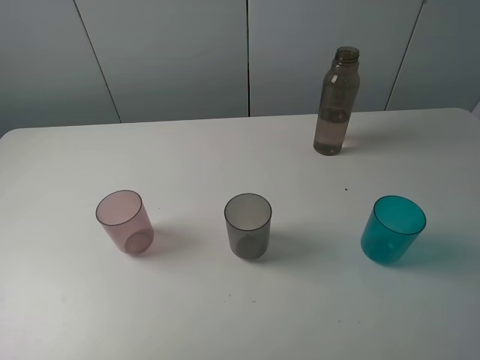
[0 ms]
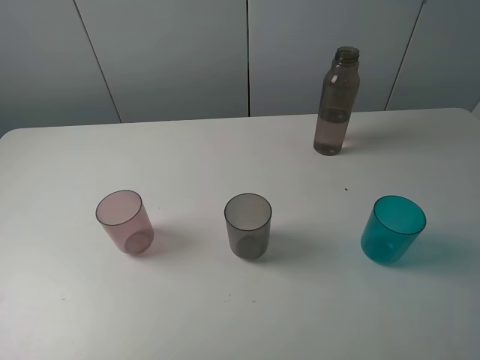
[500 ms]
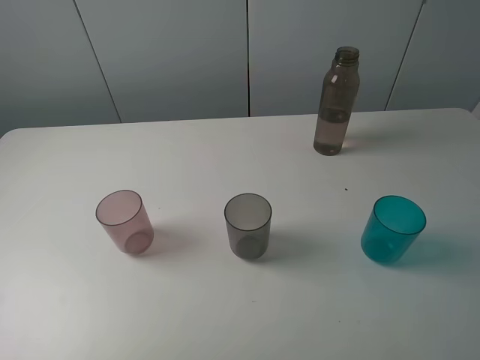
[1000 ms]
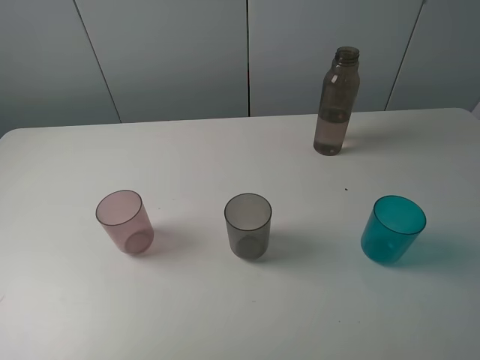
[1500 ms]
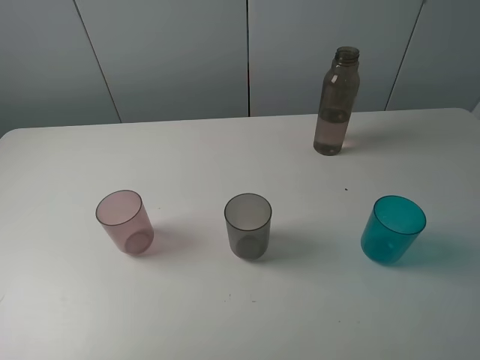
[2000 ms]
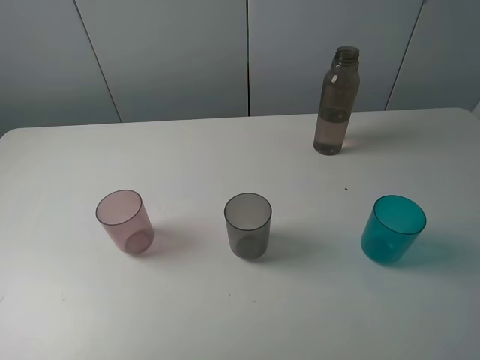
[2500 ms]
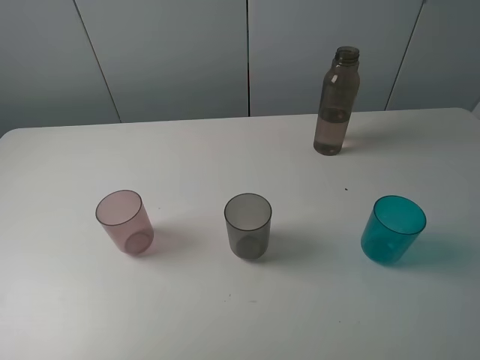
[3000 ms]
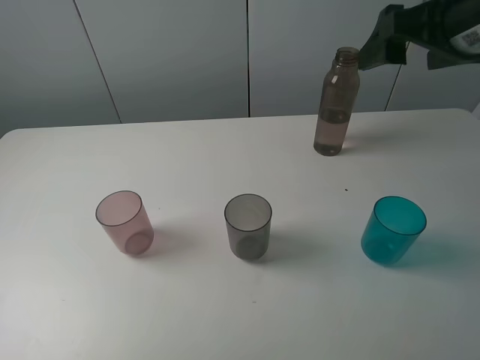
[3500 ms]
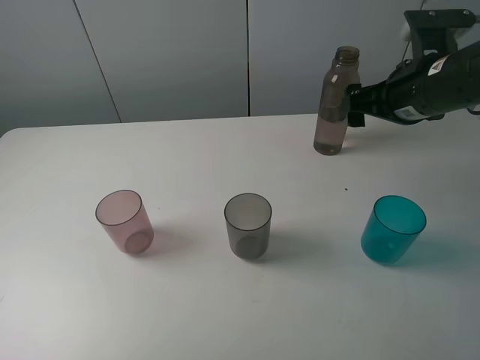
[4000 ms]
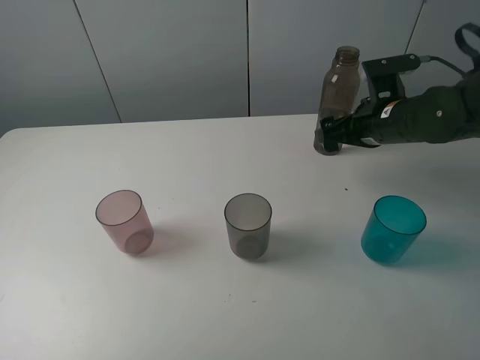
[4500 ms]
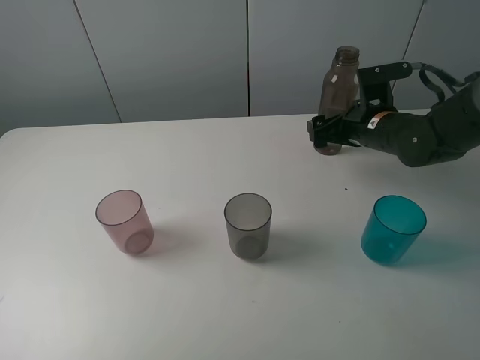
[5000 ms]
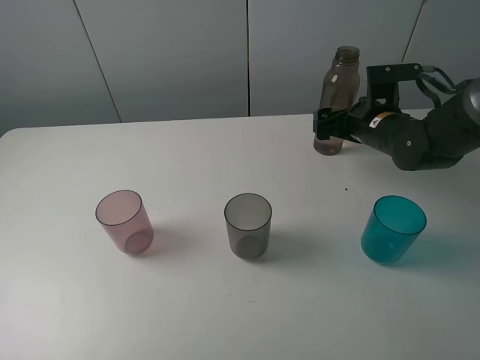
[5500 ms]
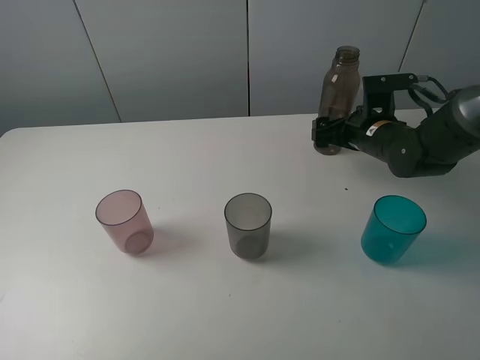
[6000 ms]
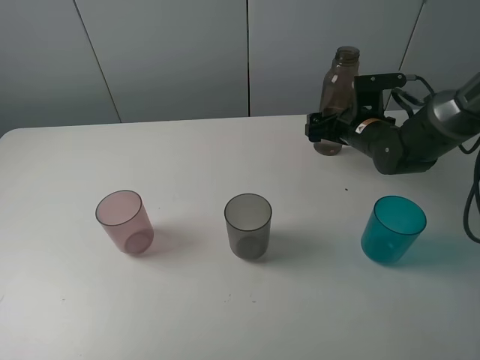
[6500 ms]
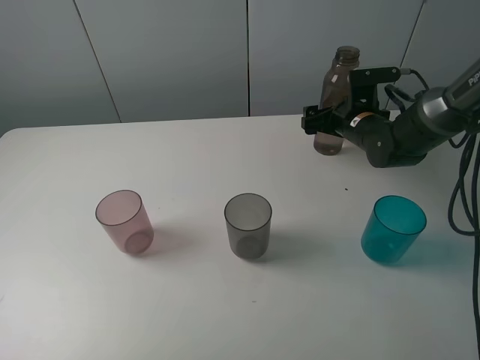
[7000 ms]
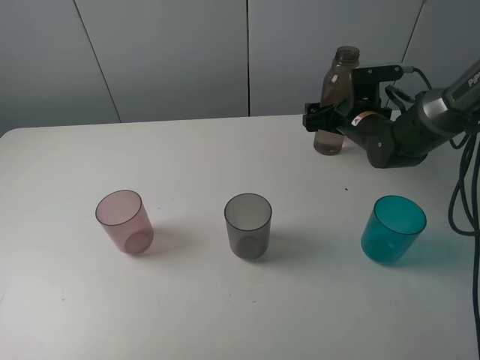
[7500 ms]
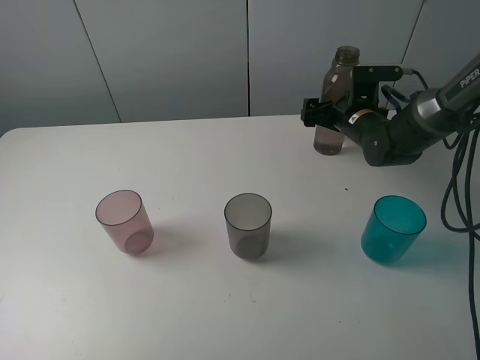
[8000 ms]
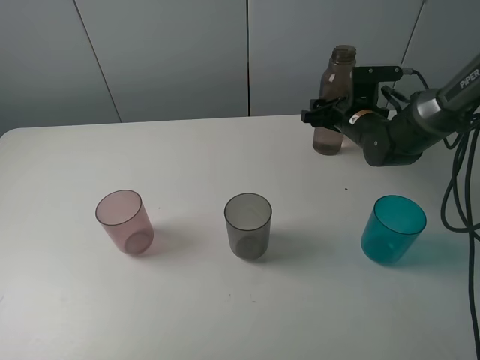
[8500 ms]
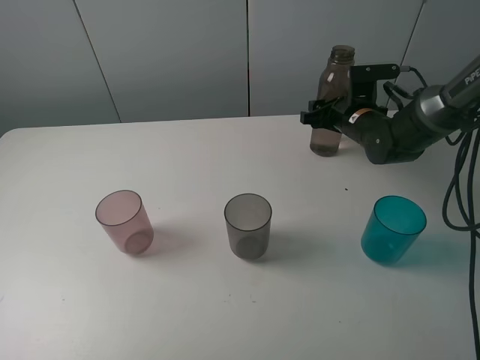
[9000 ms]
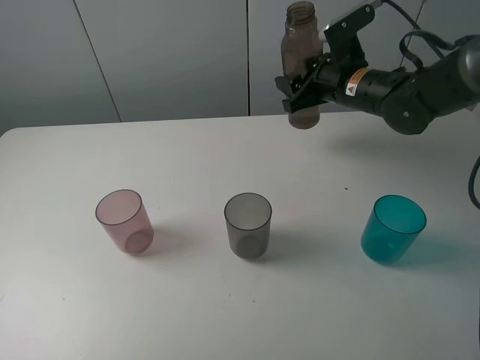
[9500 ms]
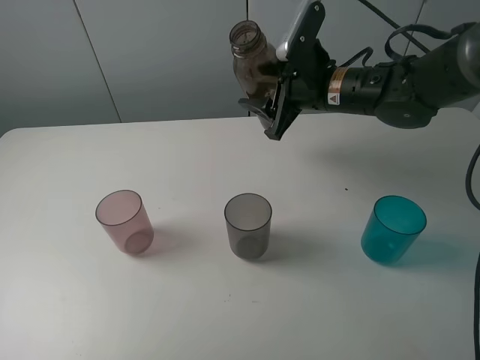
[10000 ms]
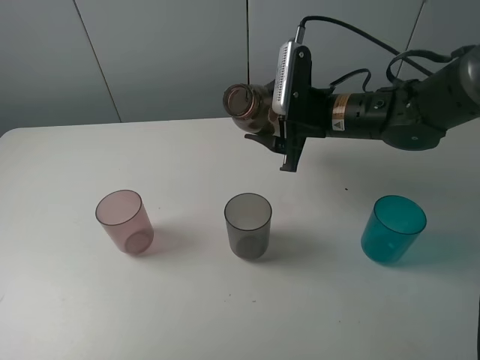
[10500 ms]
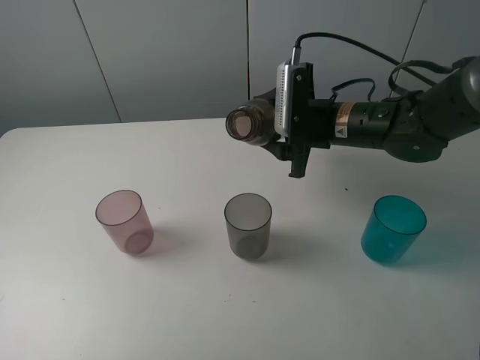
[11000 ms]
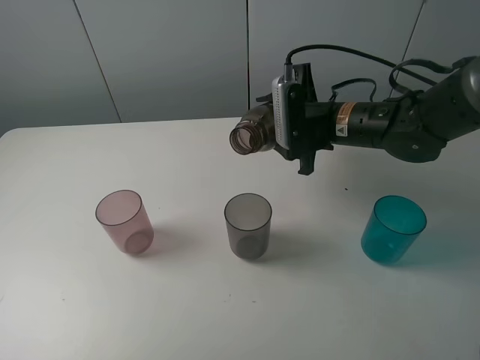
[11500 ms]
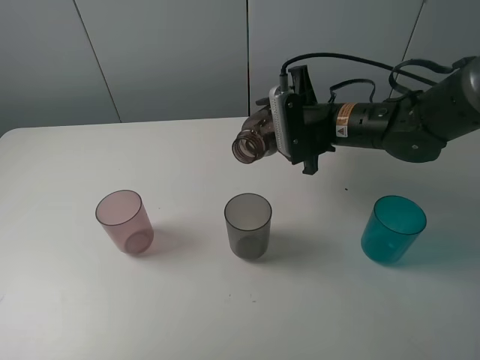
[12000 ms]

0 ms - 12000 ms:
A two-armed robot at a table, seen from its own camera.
Task of the whole recording: pick up the bottle filled with water and pour water into the middle cup of the three cups.
Step, 0 ms - 8500 ms: Grasp the brown bottle with the right gripper.
0 ms - 2000 ms: Both grippers stay about where they are.
2000 ms - 4000 ms: The right gripper is displaced forward by about 30 cm.
4000 ms - 6000 ms: The right gripper shifts some 15 cm downward and forward.
6000 ms - 8000 ms: The right gripper travels forward by approximately 5 cm.
8000 ms - 10000 ms: The right gripper travels upward, to the left and backward by about 15 cm, and closes.

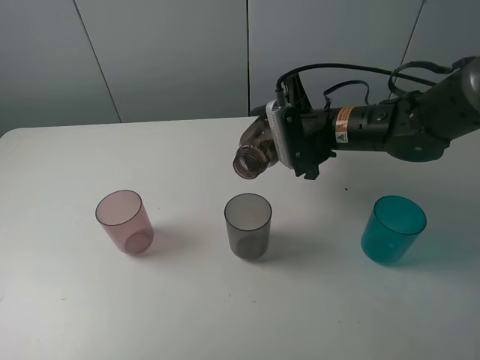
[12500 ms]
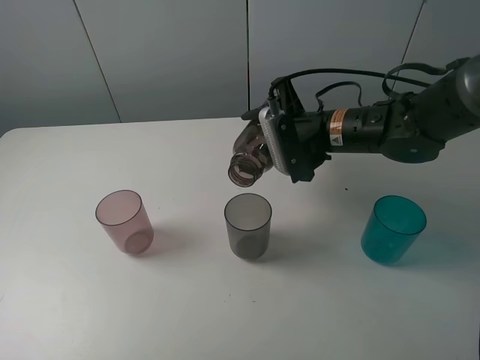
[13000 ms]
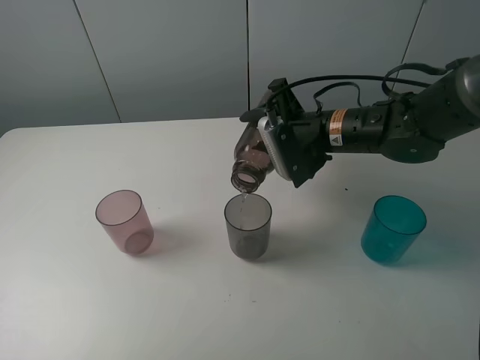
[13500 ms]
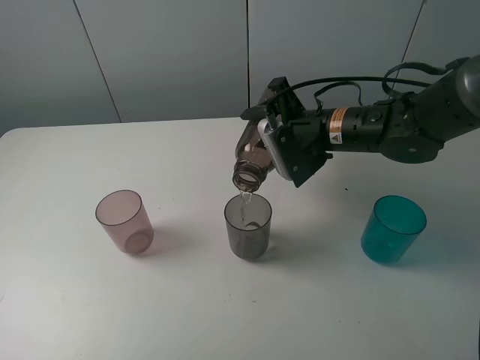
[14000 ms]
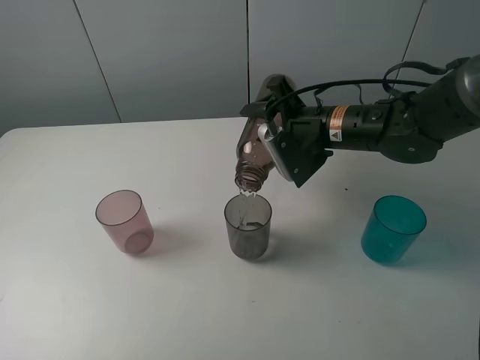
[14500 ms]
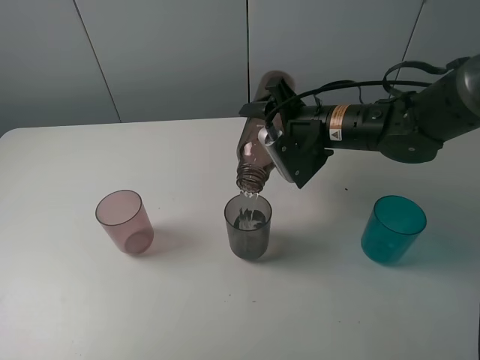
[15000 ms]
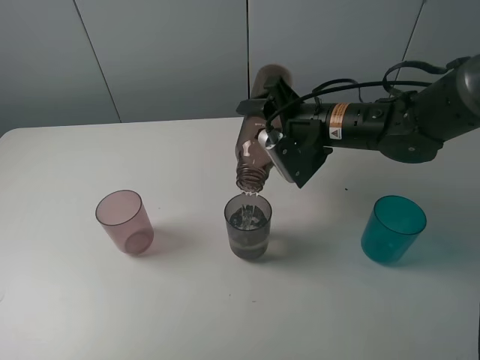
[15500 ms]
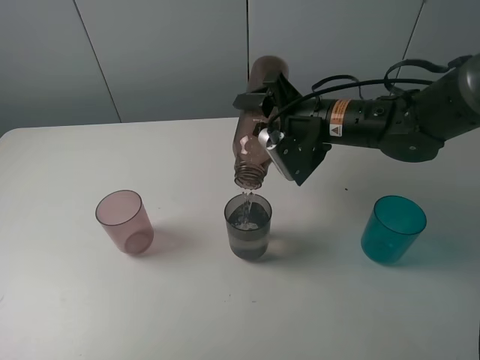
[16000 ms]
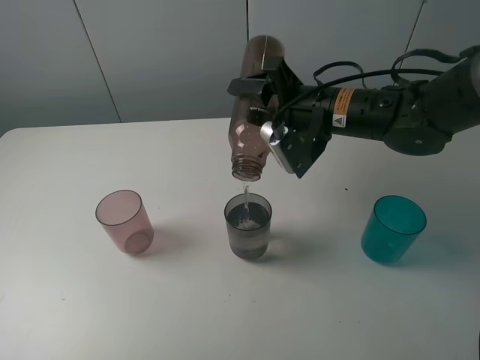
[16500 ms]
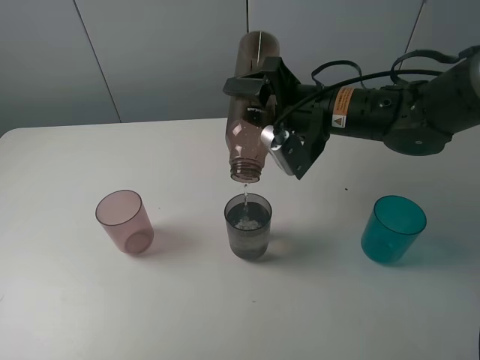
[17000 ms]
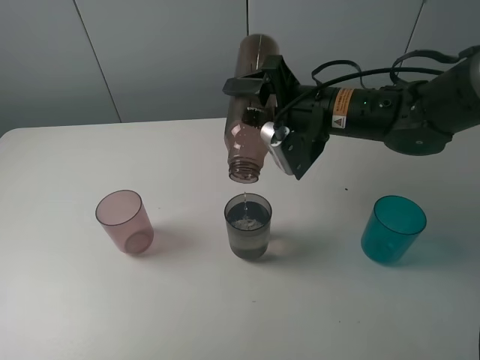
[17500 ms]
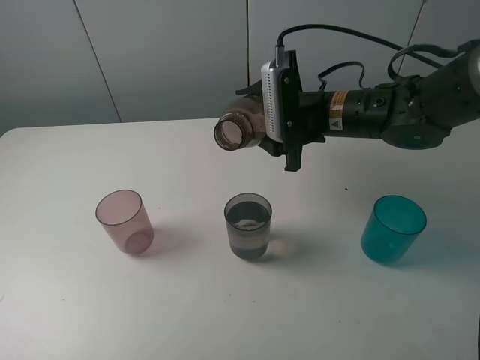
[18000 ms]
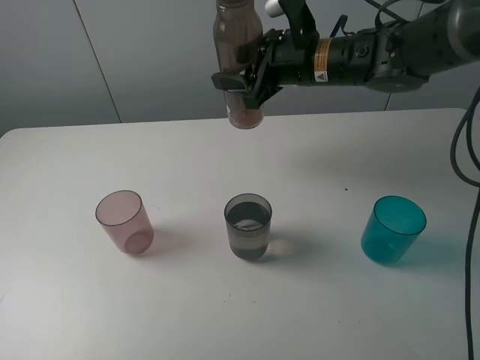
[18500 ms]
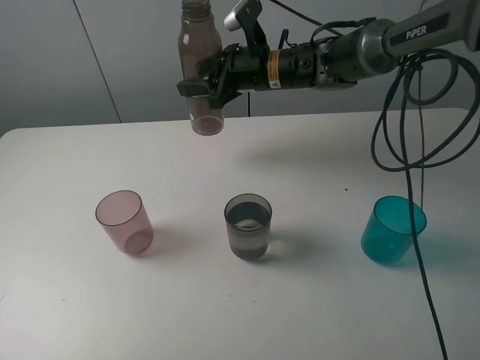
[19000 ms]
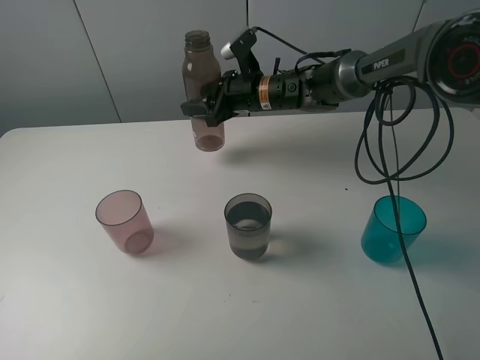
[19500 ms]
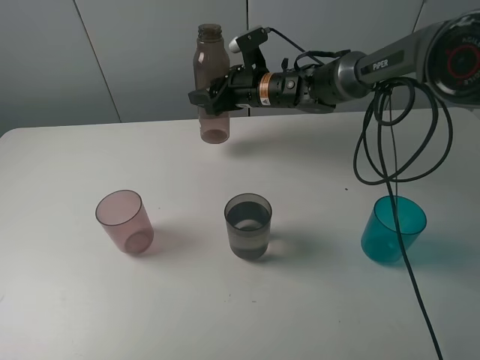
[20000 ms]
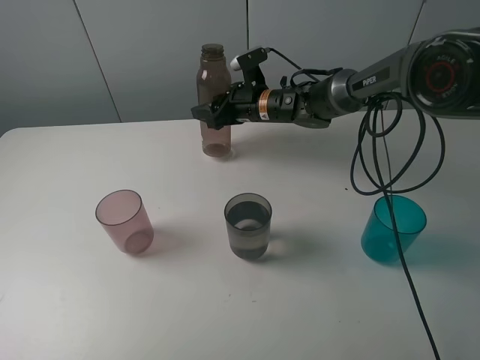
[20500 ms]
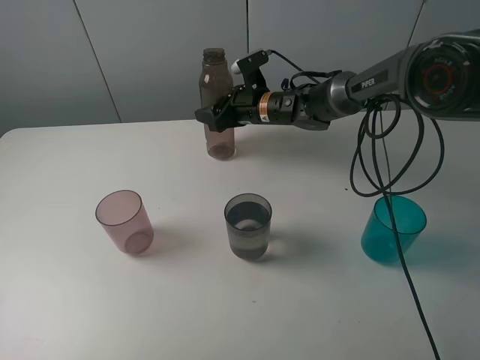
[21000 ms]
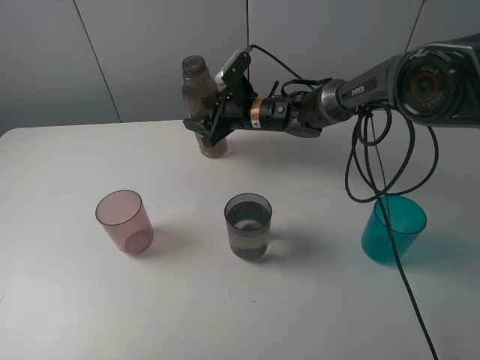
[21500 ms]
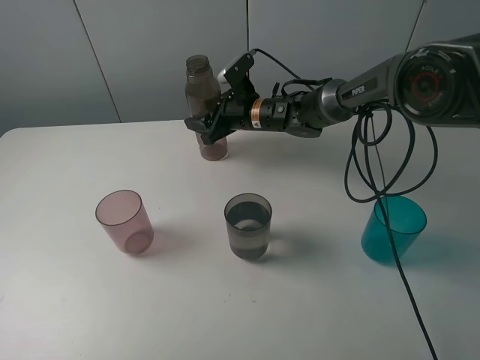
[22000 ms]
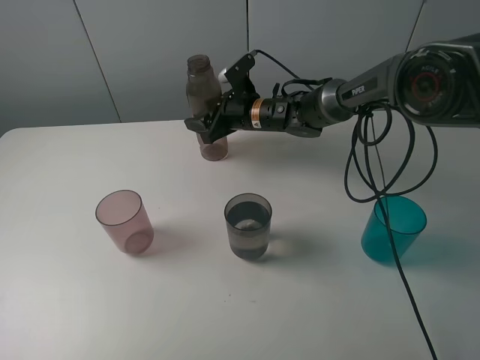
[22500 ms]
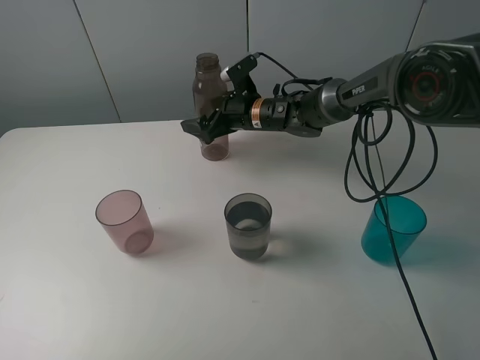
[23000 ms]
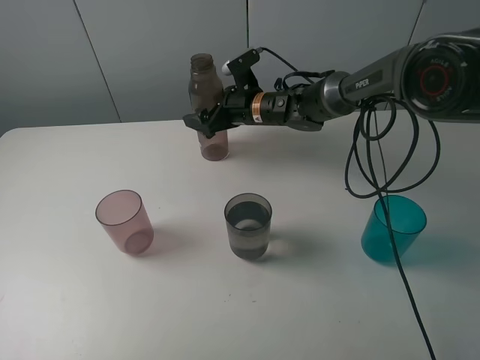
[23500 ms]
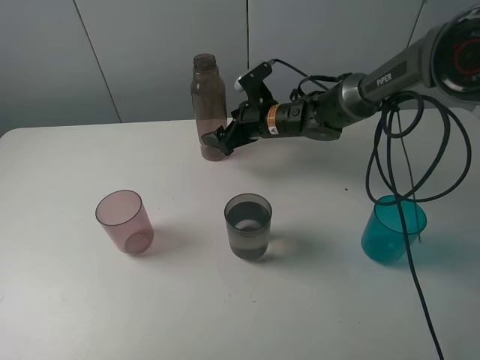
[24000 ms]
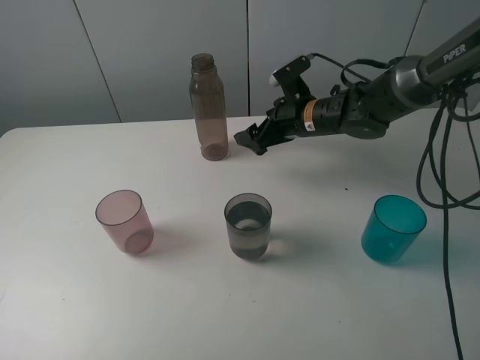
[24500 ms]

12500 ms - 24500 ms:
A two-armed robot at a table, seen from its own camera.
Task of the whole recording: pick up the bottle filled with water and pour water into the middle cup of the three cups.
Step, 12500 ms - 18000 ms: Pour water from brown bottle to grey cup with the right gripper.
12500 ms - 14500 ms: There are only small adjustments of the grippers.
14500 ms - 16500 ms: The grippers move only a little.
16500 ms - 18500 ms: The right gripper heads forward, covering some 5 cm.
18500 ms - 20500 ms: The right gripper goes approximately 15 cm downward, forward and to the left.
20500 ms - 22500 ms: The grippers stay close to where they were, moving slightly.
22500 ms - 24500 ms: The right gripper travels to the right and backward by roughly 10 cm, and opens its fingers.

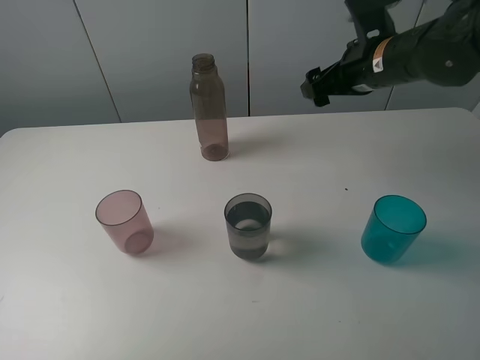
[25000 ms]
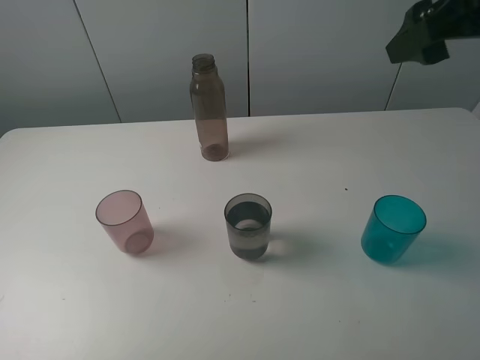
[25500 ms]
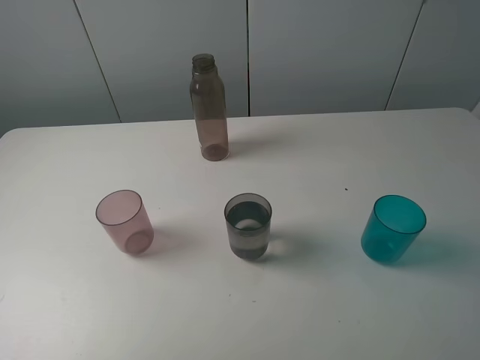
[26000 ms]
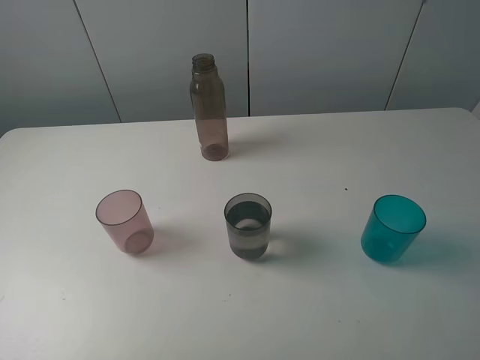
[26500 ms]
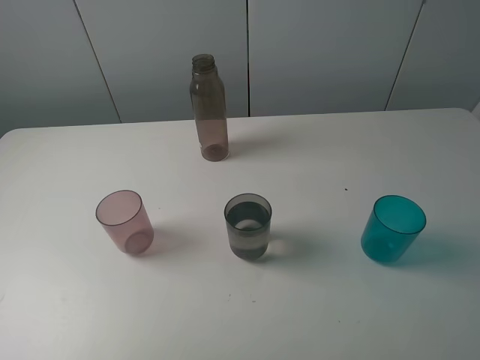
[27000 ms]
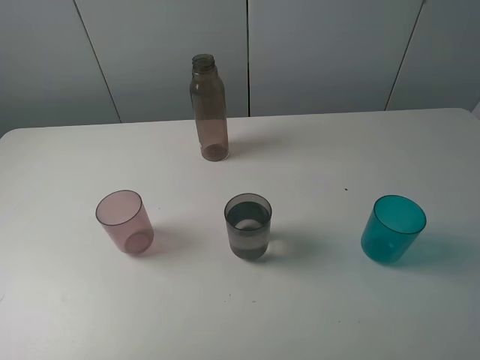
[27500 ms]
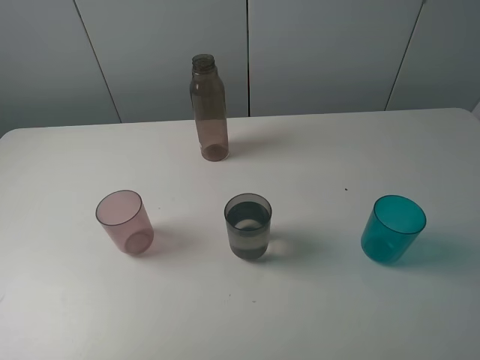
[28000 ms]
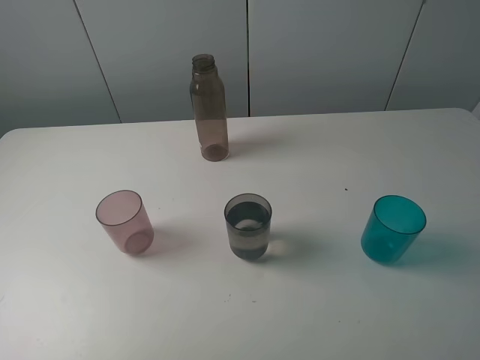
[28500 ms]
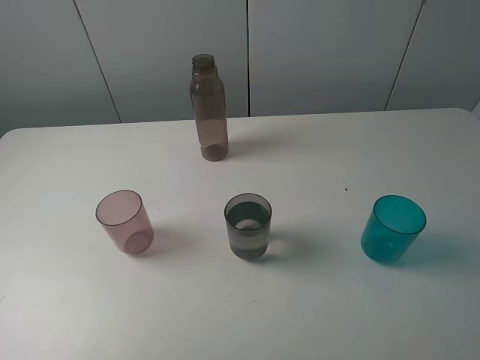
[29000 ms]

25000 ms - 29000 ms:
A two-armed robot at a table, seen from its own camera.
Task of the whole recording: pick up the bottle filled with water and pour water into the middle cup of the three cups.
25000 ms - 27000 ms: The right gripper is displaced backward by about 35 cm.
